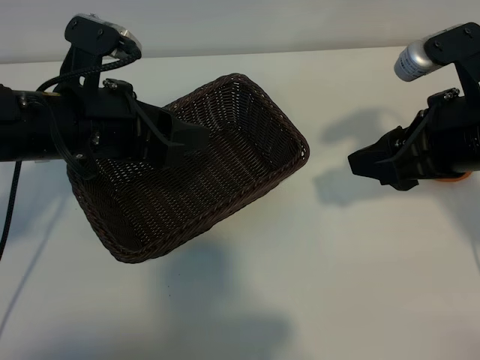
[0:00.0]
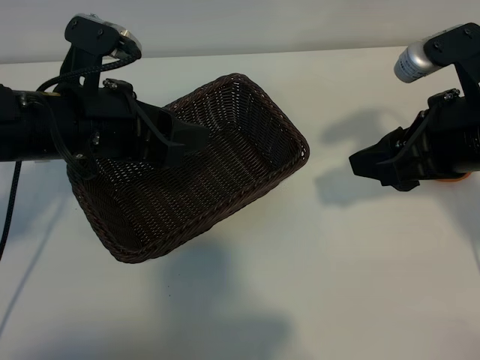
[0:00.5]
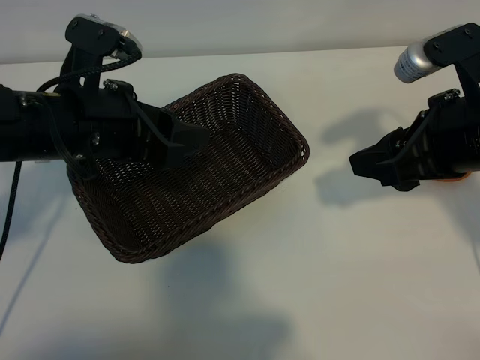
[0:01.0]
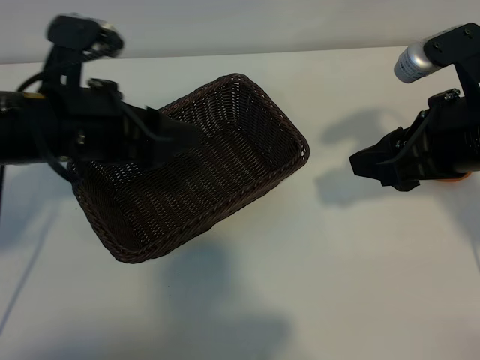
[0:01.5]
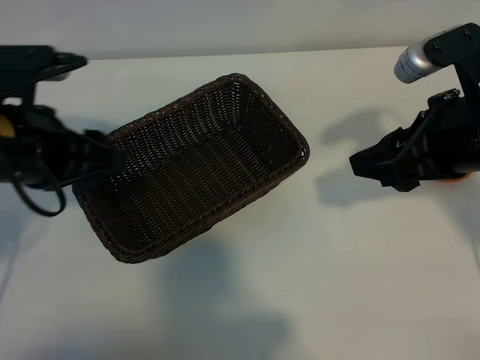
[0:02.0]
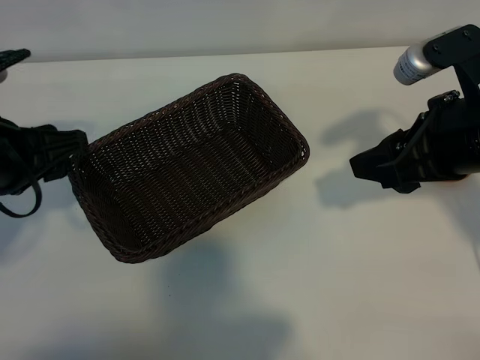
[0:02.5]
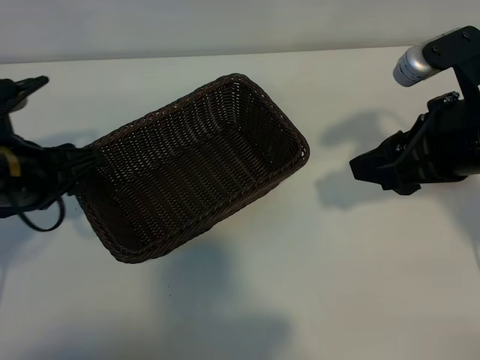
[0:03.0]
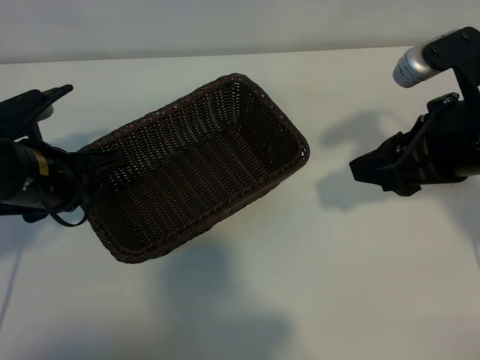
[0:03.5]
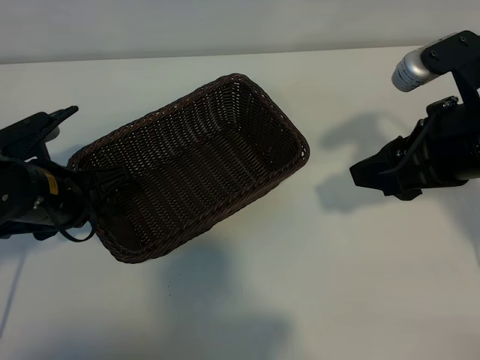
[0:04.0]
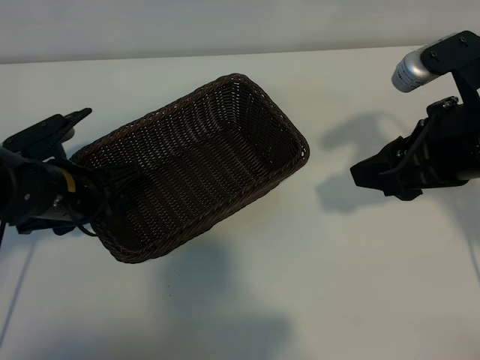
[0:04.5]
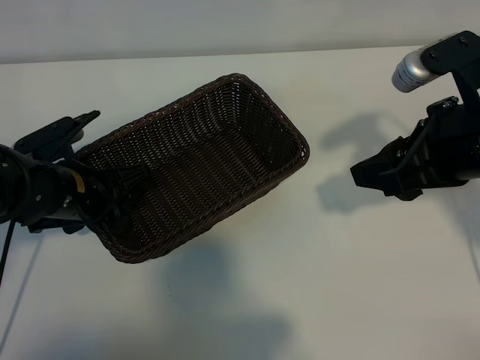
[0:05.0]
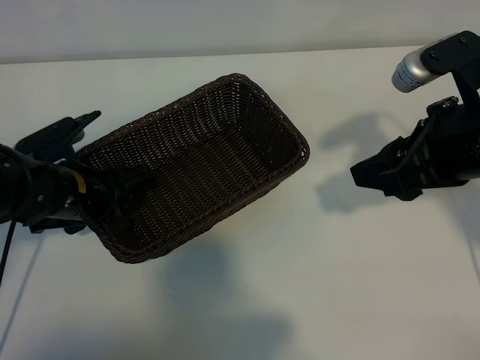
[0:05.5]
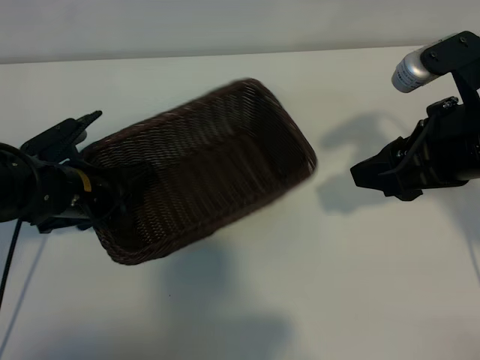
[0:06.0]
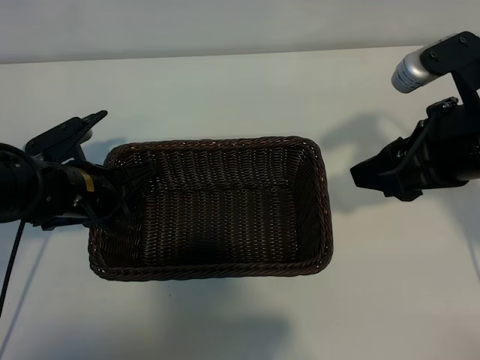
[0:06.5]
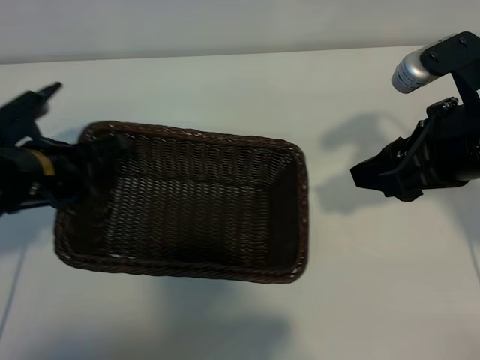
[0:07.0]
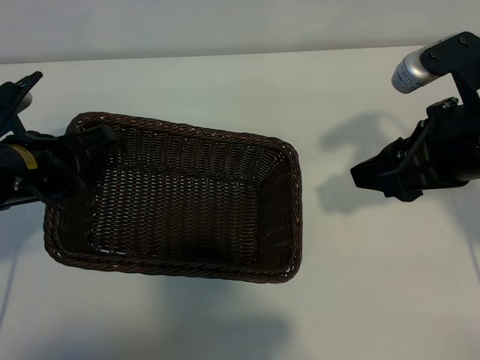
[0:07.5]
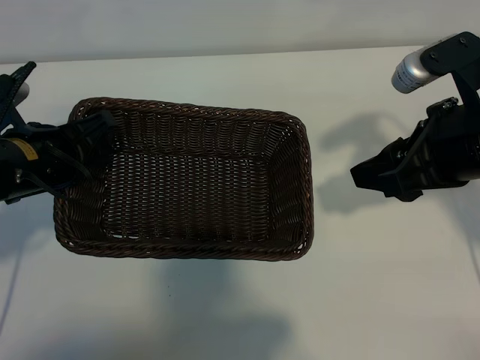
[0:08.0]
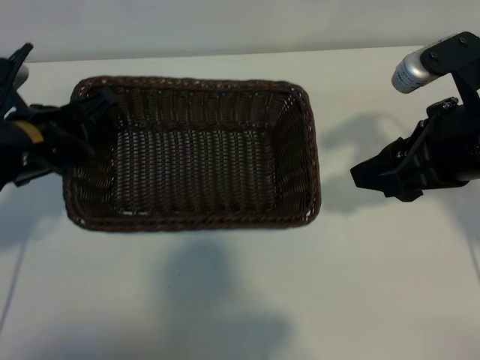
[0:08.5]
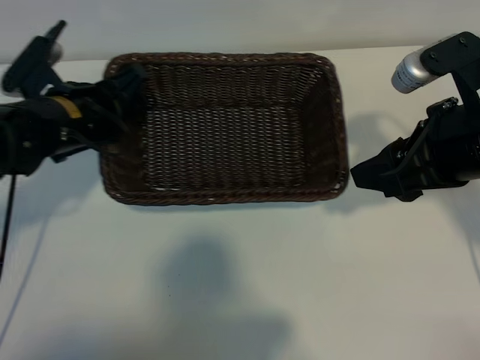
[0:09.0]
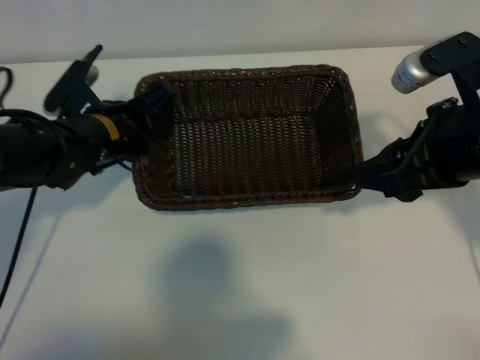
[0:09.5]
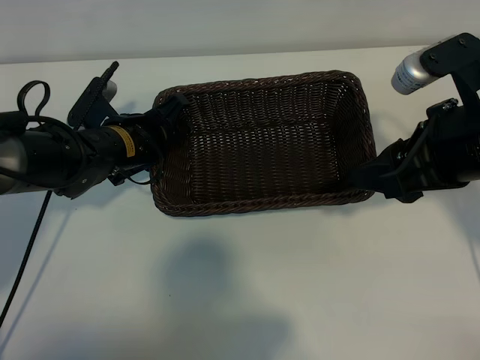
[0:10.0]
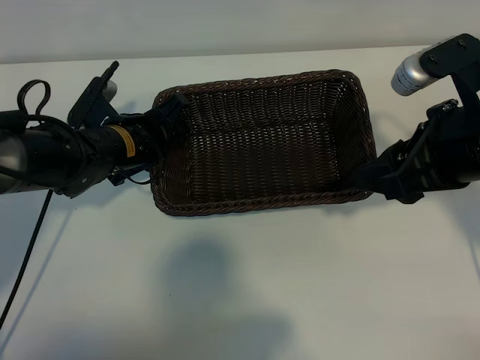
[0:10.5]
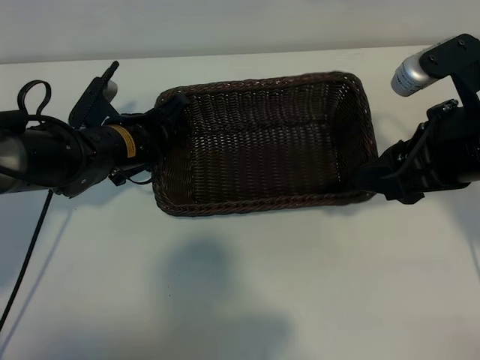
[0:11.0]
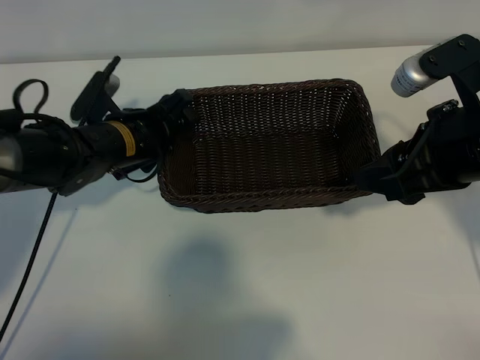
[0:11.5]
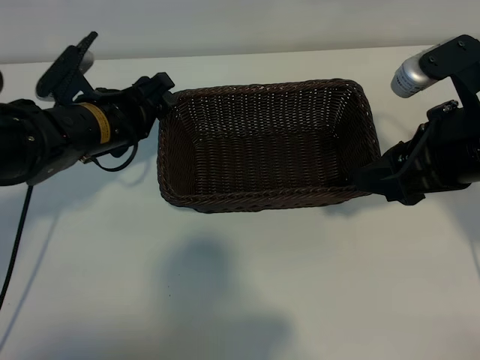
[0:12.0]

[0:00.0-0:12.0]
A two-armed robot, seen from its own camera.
Task of the whole recording: pick up the orange and put it into the basket.
Step, 0:00.0 to 0:06.0: Grasp the basket with left gripper.
Step, 0:06.5 to 0:11.5: Place the basket in the center of view with left gripper.

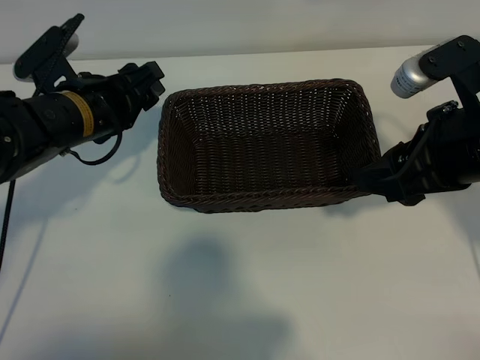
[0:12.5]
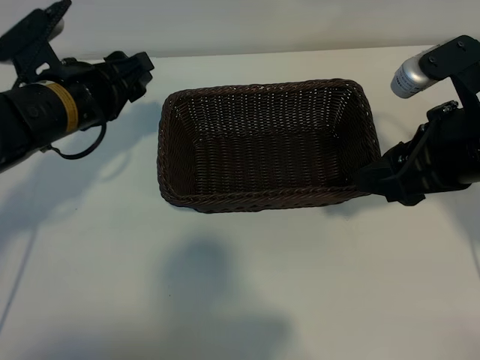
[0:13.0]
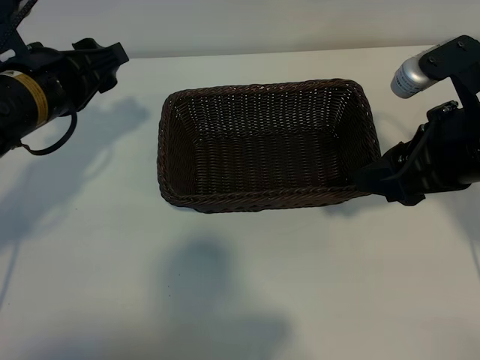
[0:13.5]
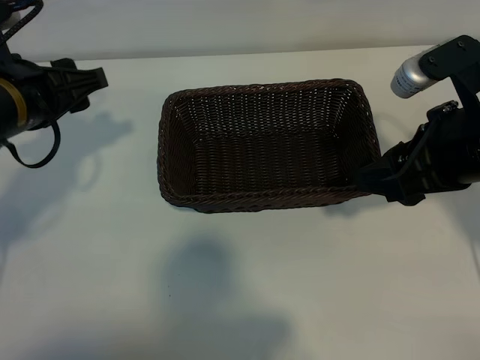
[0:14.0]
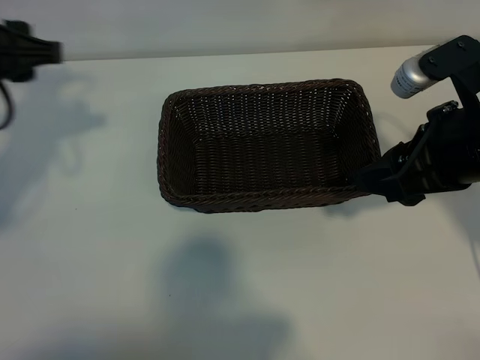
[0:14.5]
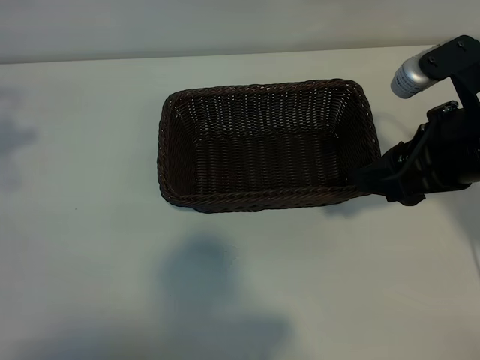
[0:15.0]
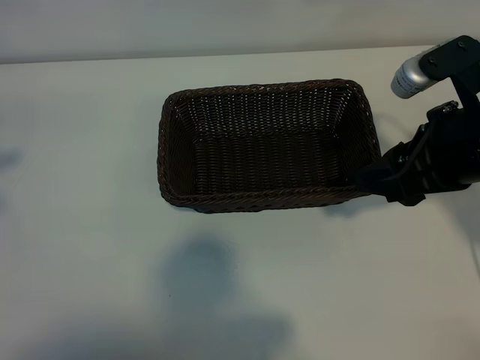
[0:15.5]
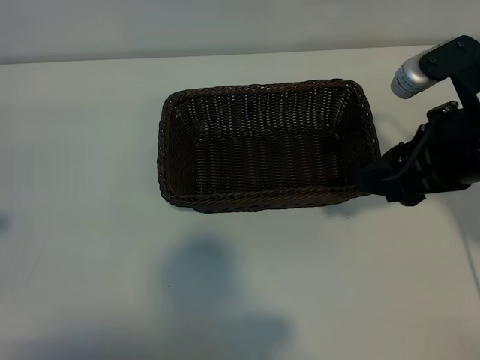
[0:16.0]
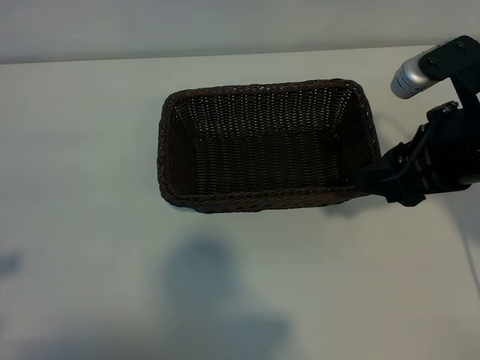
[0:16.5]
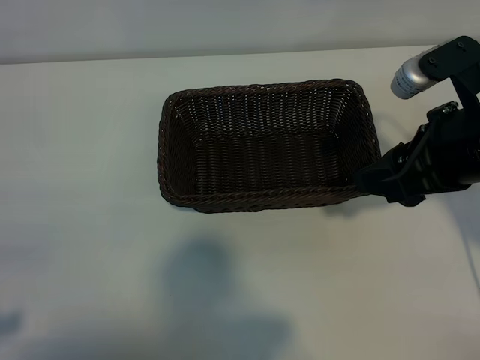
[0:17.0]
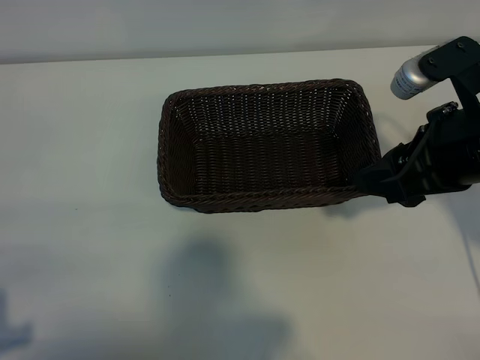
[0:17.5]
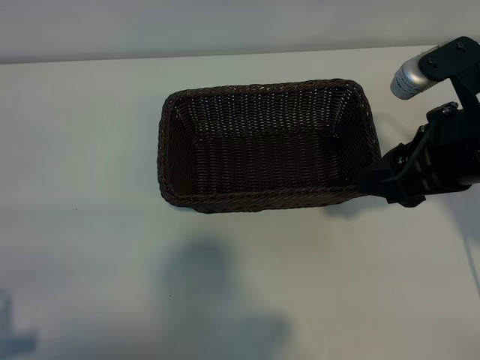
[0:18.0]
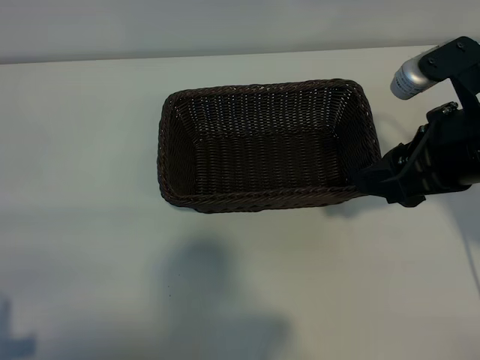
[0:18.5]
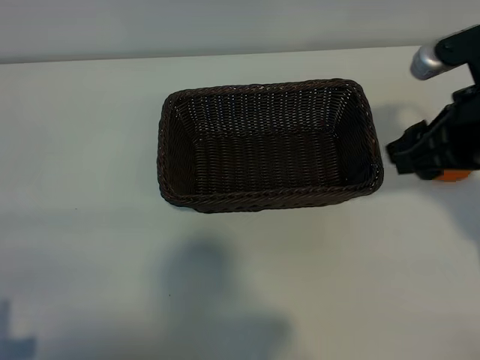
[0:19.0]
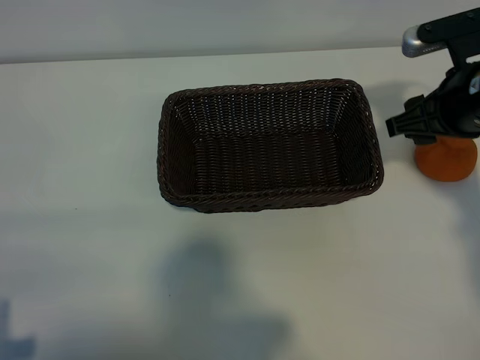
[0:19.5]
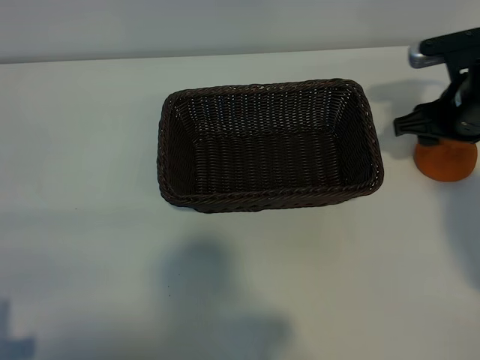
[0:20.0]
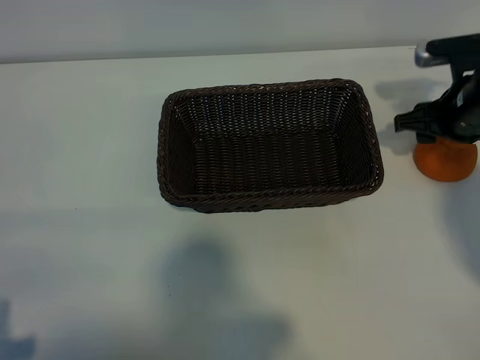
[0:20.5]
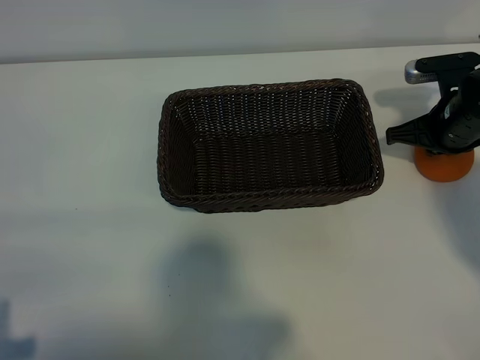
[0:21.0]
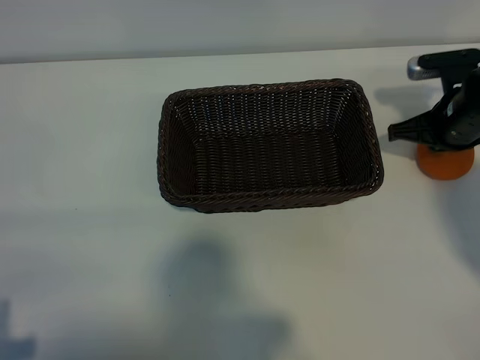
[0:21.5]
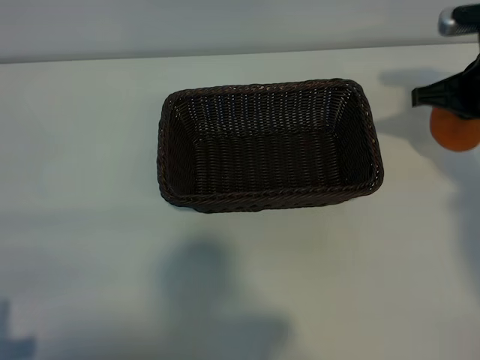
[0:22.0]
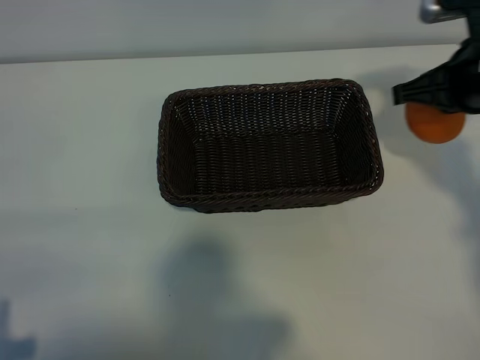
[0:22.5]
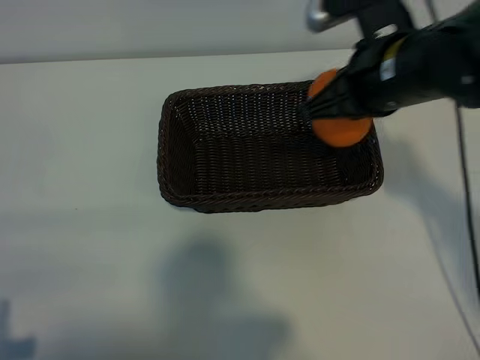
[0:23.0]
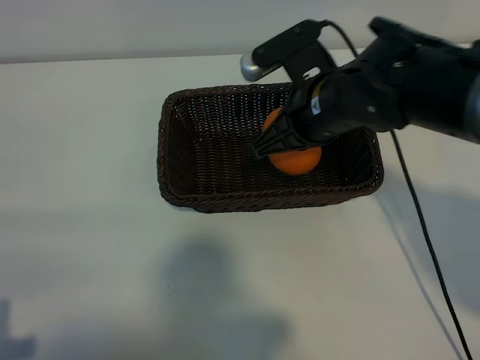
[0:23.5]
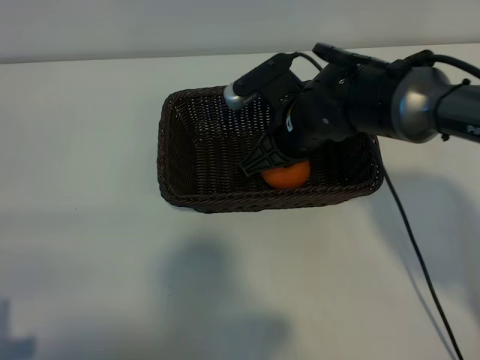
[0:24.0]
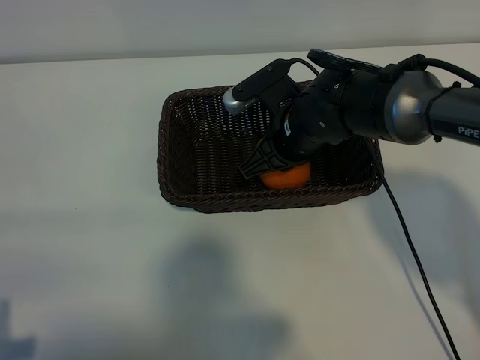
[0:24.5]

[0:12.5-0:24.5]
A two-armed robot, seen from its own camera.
Task of the whole recording: pick up the orange and put it into the basket.
Step, 0:12.5 to 0:21.0: Grasp the orange with right gripper.
